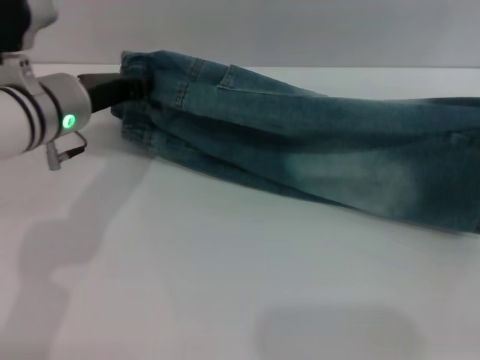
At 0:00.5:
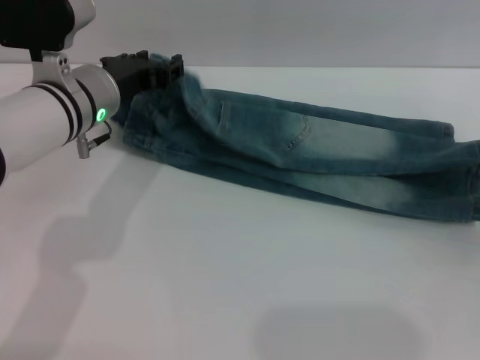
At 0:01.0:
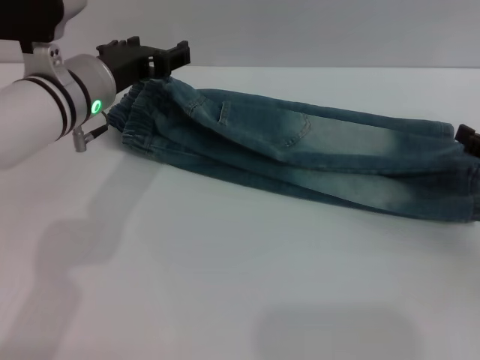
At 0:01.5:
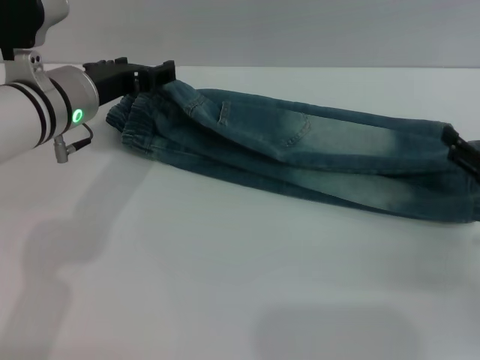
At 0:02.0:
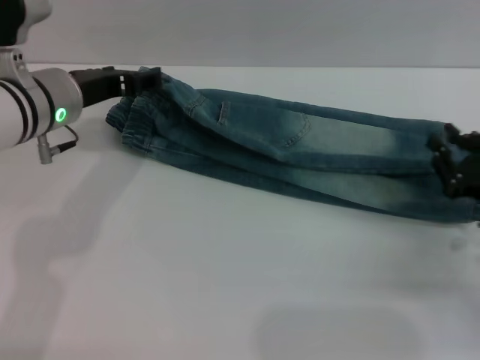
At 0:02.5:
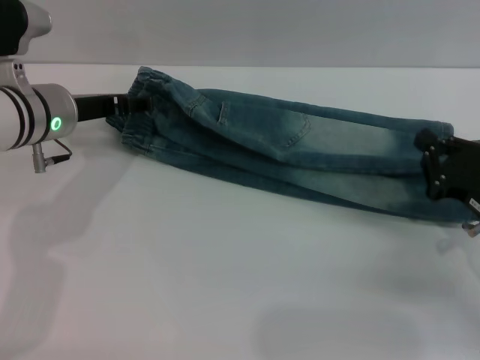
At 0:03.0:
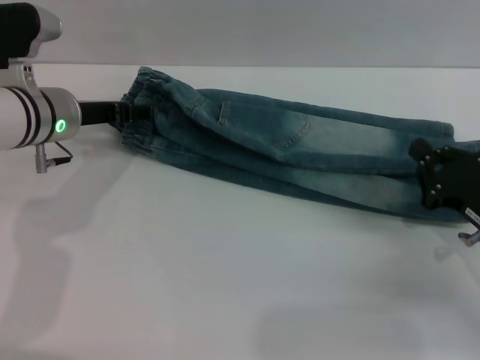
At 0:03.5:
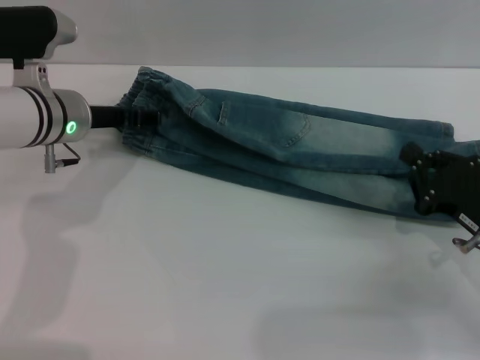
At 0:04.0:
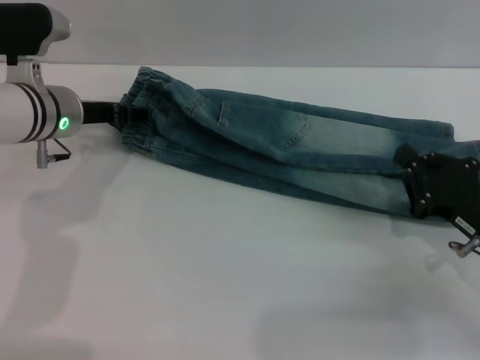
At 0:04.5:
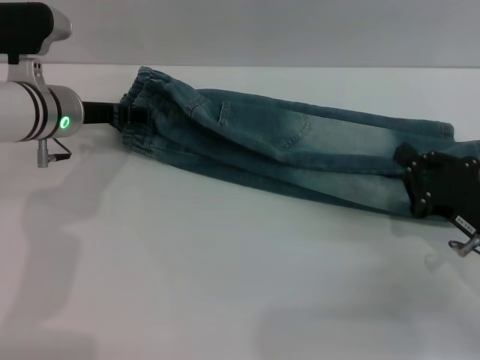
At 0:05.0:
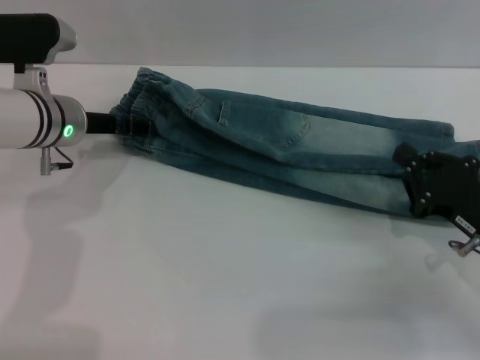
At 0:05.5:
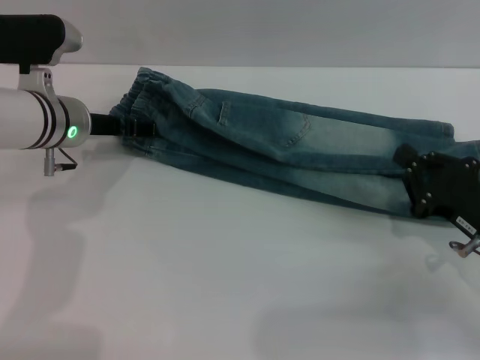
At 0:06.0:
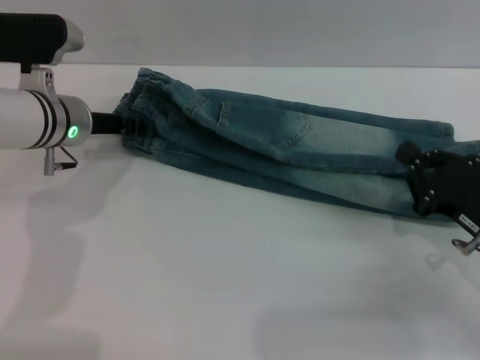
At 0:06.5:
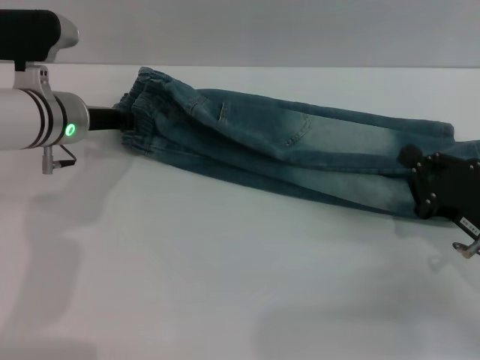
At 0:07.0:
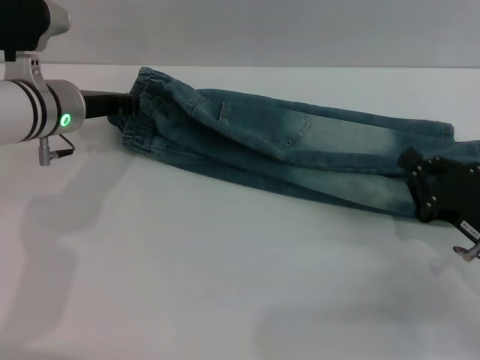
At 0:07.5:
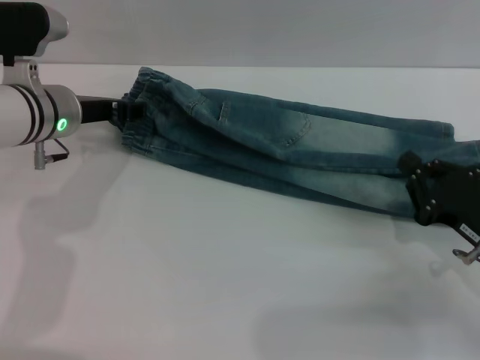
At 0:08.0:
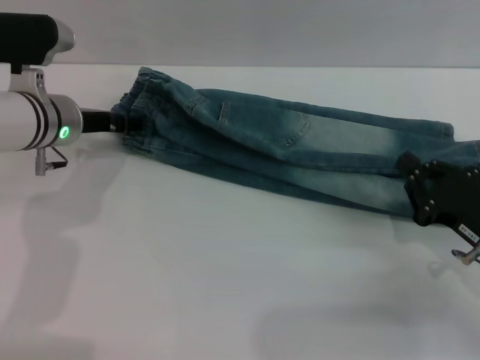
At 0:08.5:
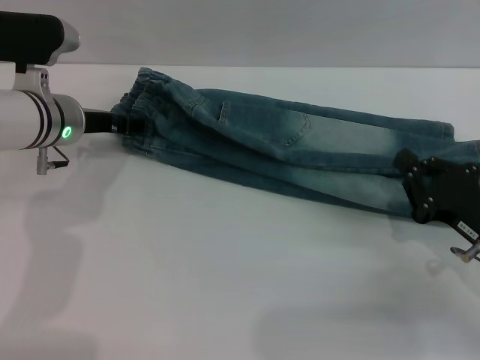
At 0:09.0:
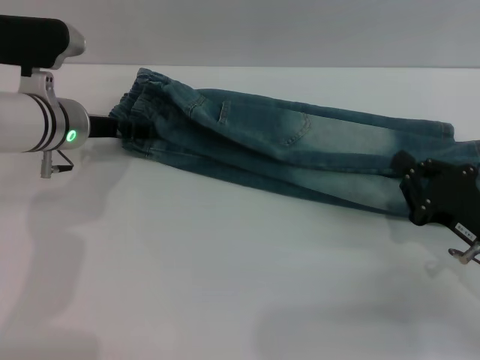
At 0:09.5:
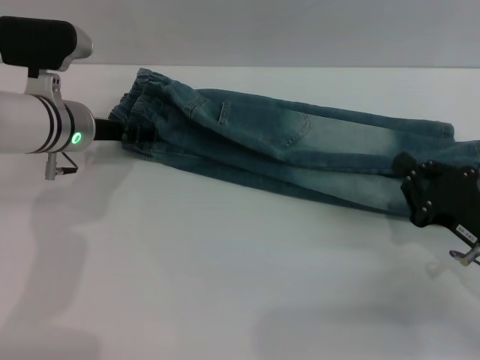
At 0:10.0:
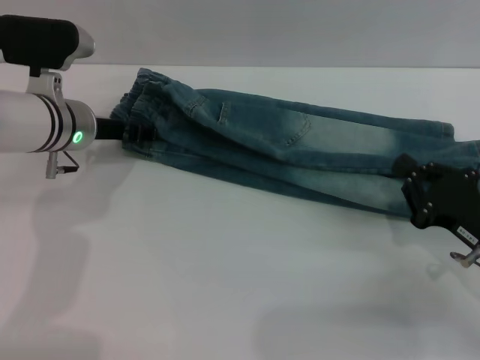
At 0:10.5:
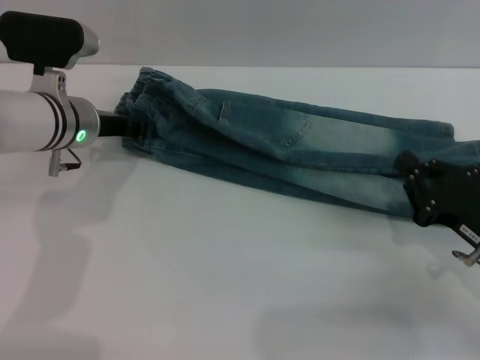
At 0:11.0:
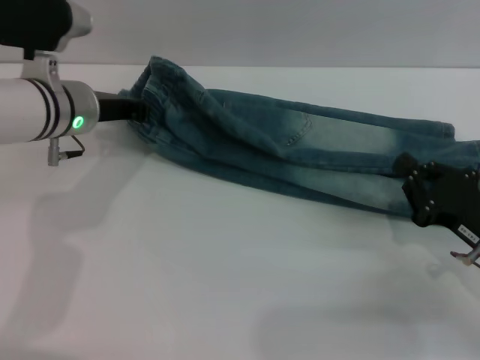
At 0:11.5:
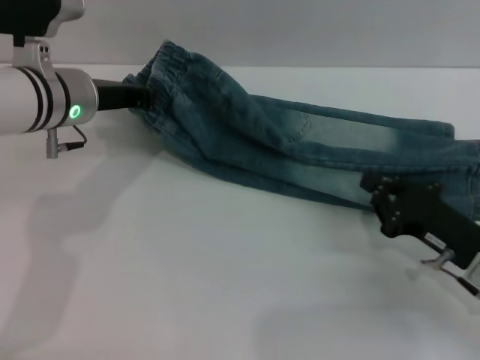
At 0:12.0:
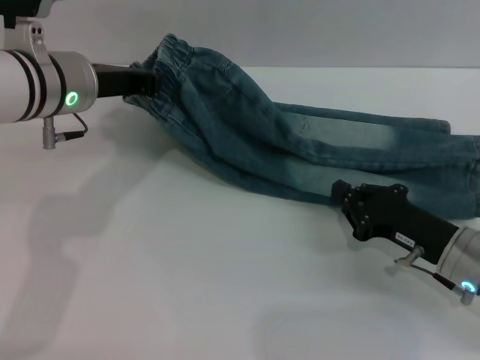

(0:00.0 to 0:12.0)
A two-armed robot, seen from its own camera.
0:00.0 - 0:02.0: The left gripper opens up; the right gripper shifts roughly 10 cm downward, and opens up.
0:02.0 - 0:04.0: The right gripper closes.
0:04.0 - 0:06.0: Neither gripper changes place.
0:06.0 - 0:08.0: The left gripper closes, then reopens.
0:08.0 - 0:10.0: Both grippers stay about where they are.
0:10.0 - 0:12.0: The left gripper shifts approximately 5 cm upward, and closes its fingers. The right gripper ends up approximately 5 cm from where it was.

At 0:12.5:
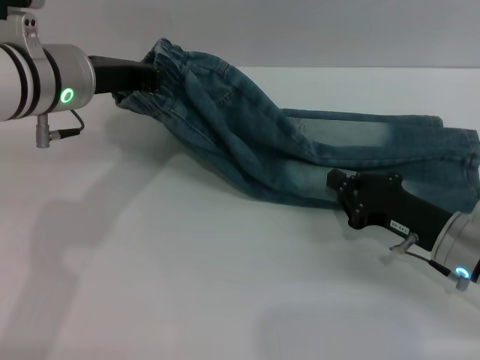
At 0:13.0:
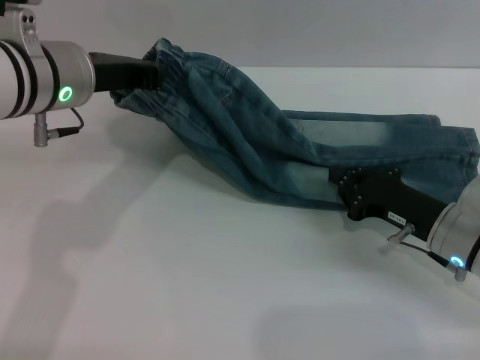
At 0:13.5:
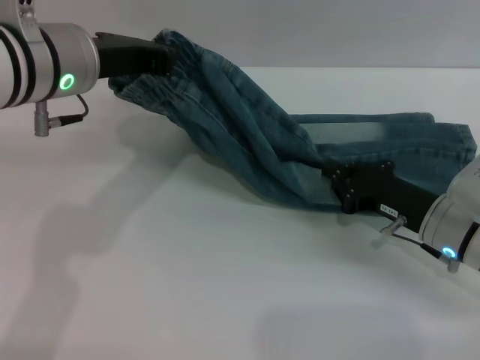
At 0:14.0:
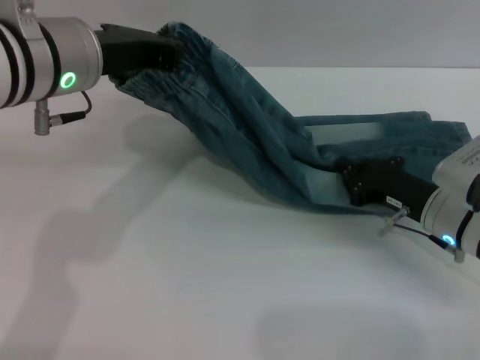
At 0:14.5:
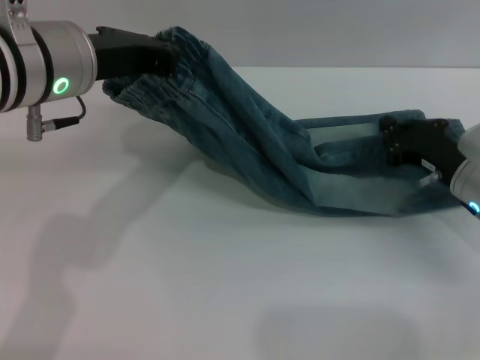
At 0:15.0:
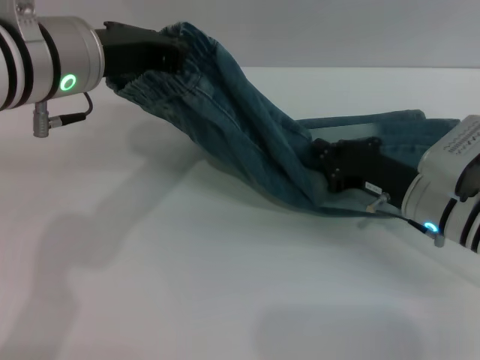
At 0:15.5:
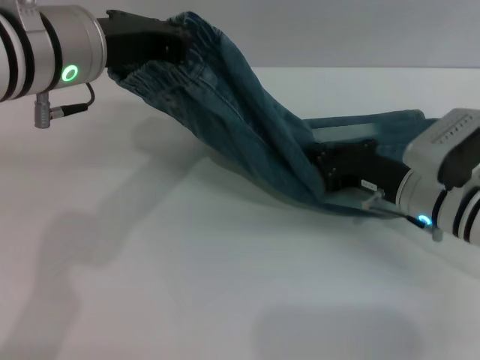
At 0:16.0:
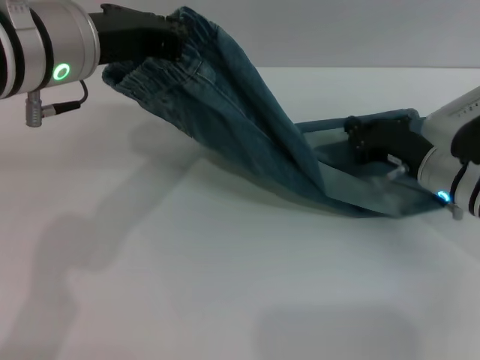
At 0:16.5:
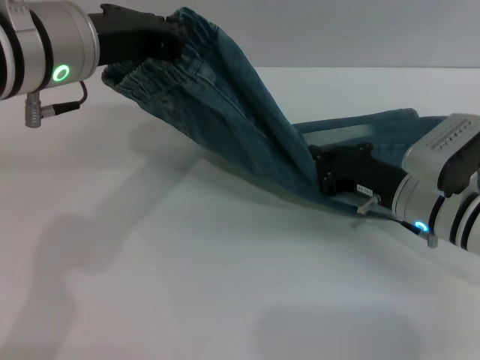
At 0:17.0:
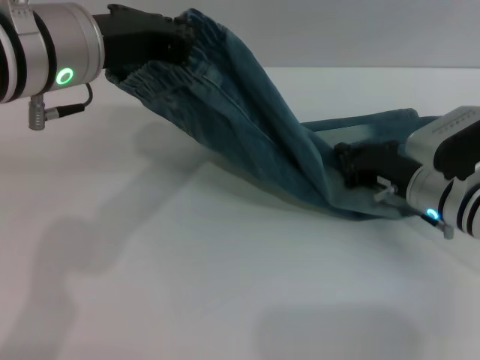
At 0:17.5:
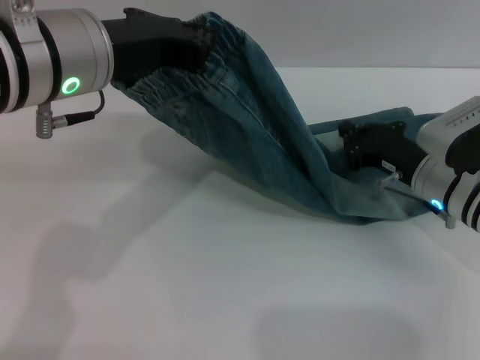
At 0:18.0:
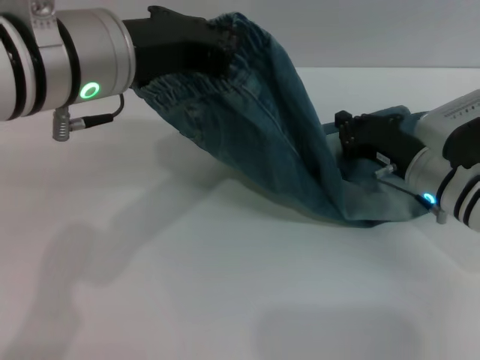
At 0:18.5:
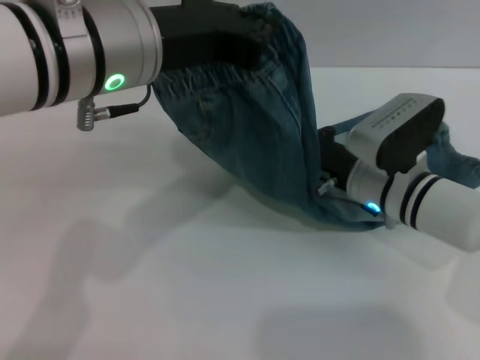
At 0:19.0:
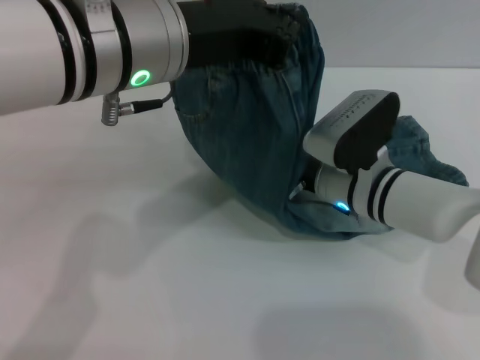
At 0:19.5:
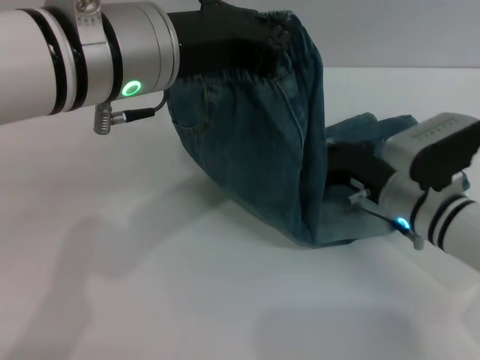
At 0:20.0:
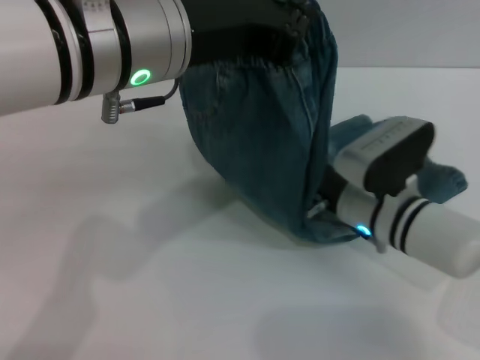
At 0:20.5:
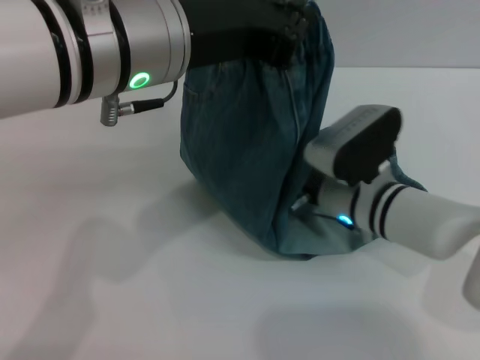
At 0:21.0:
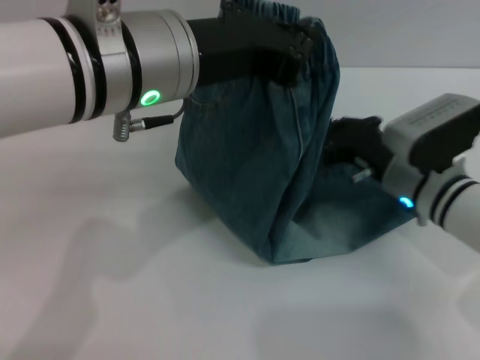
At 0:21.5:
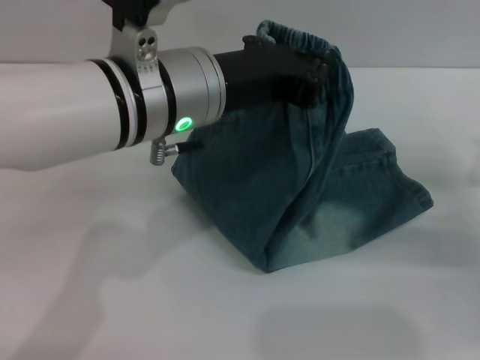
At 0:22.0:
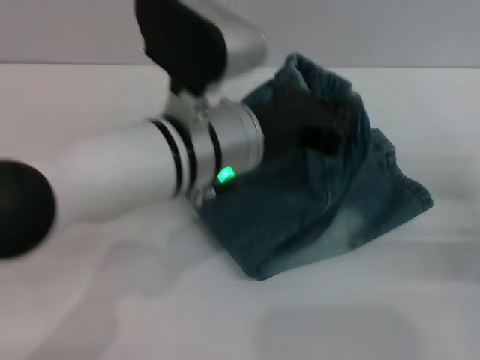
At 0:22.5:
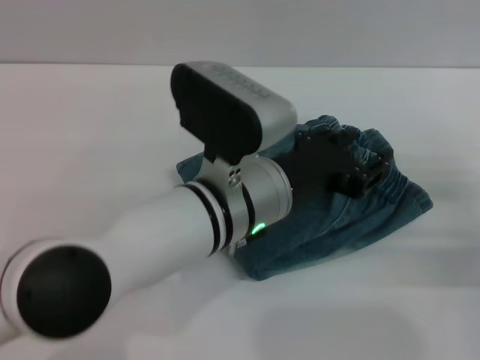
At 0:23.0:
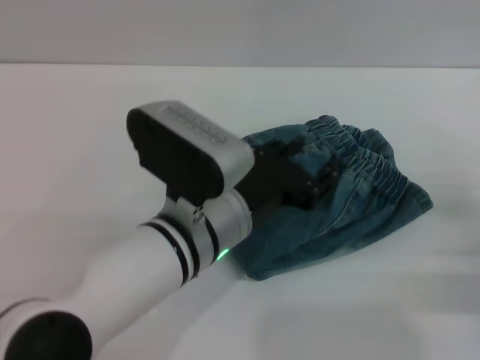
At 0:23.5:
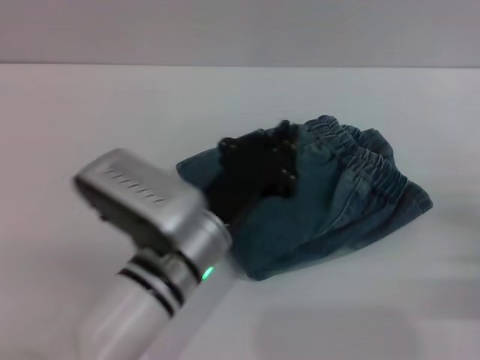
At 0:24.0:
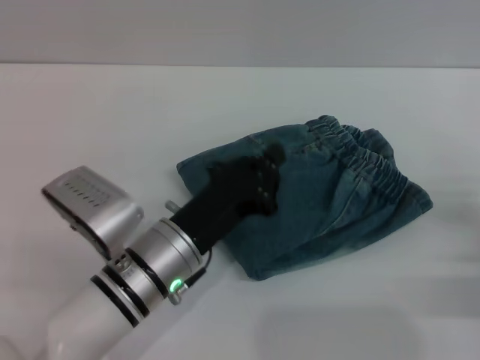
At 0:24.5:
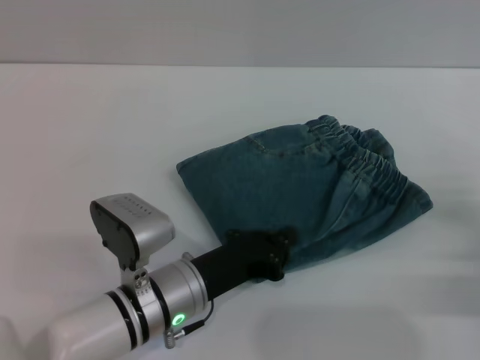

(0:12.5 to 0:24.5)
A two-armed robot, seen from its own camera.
Step, 0:12.5 - 0:22.5: Fold the pants from left to right with the left gripper.
0:12.5 - 0:14.5: The left gripper shifts by approximately 5 cm. Meanwhile the right gripper moves forward, about 5 cm.
0:14.5 - 0:16.5: The right gripper heads to the left, covering some 5 cm.
0:16.5 - 0:18.5: The right gripper is displaced to the left by approximately 5 cm, while the left gripper moves about 5 cm.
0:20.5 - 0:22.5: The right gripper goes about 20 cm to the right. Meanwhile the left gripper heads downward and to the right, covering some 15 cm, and opens its fingers.
0:22.5 - 0:24.5: The left gripper is displaced downward and to the left by some 15 cm, and closes up.

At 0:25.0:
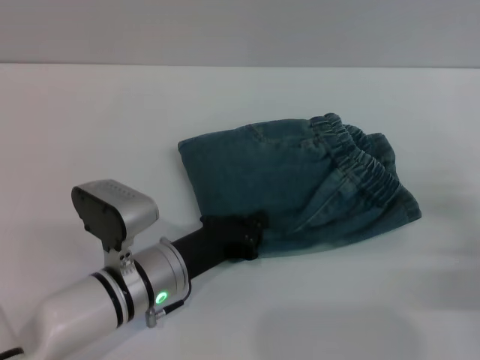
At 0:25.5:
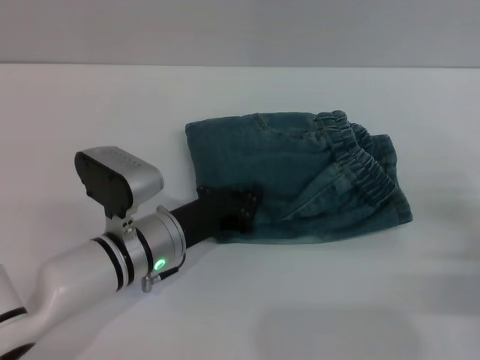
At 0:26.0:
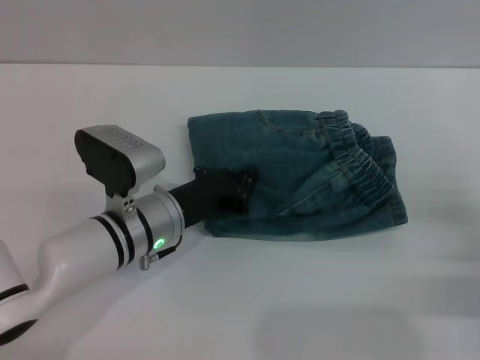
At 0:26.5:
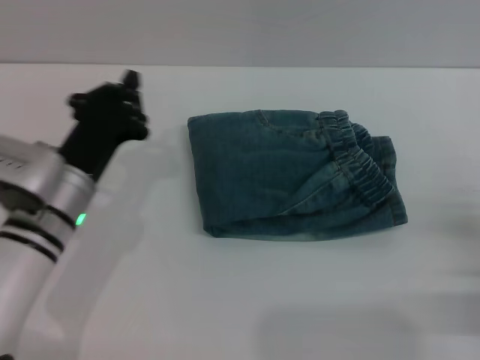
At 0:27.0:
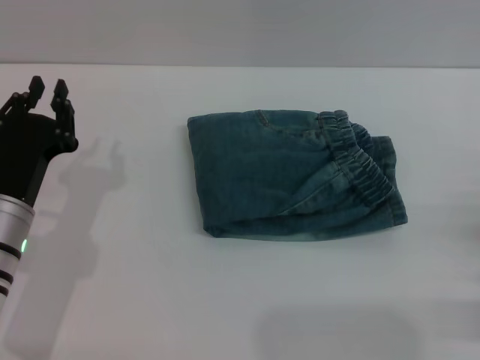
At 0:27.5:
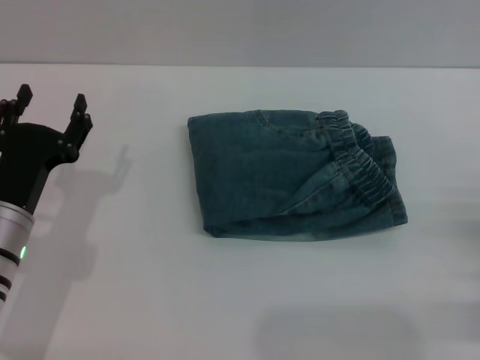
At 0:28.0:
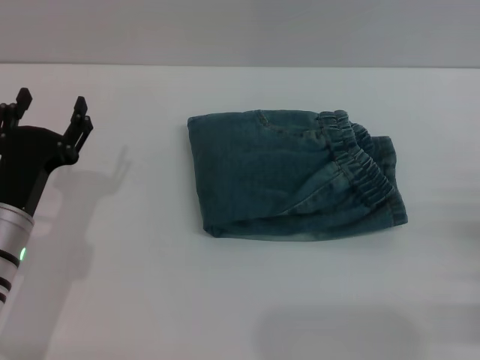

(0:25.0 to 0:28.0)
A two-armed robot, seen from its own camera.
0:25.0 - 0:26.5: The left gripper shifts about 10 cm to the left and upward.
0:26.5 - 0:28.0: The left gripper travels to the left by about 5 cm, and opens its fingers.
